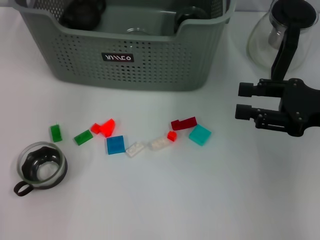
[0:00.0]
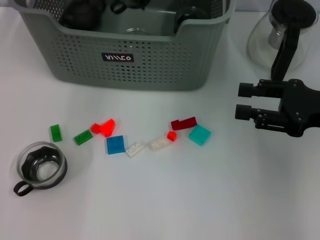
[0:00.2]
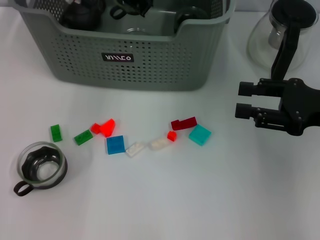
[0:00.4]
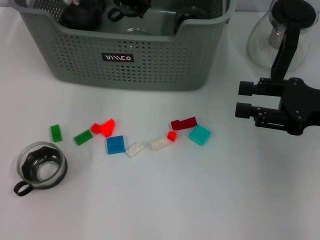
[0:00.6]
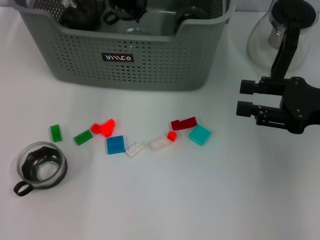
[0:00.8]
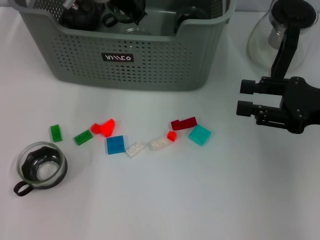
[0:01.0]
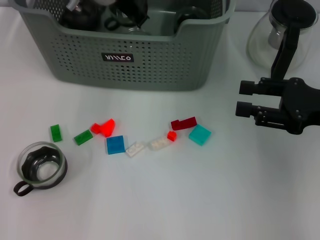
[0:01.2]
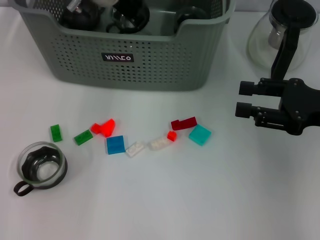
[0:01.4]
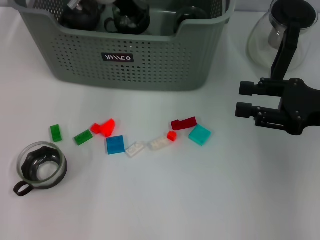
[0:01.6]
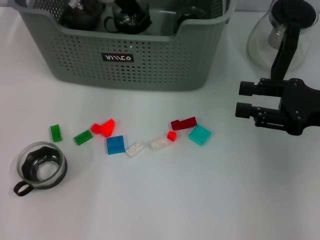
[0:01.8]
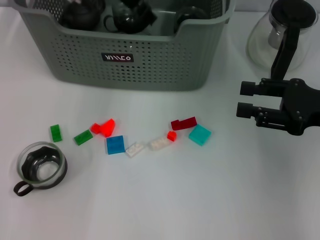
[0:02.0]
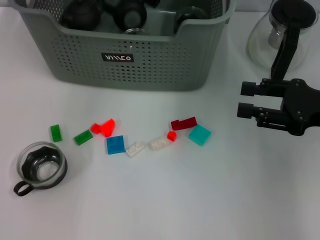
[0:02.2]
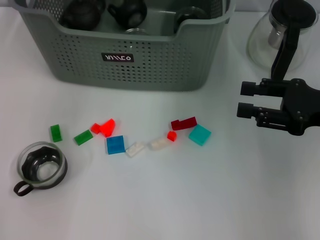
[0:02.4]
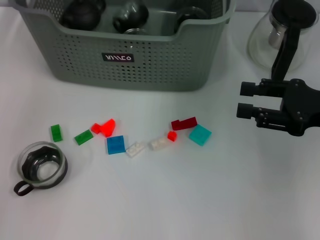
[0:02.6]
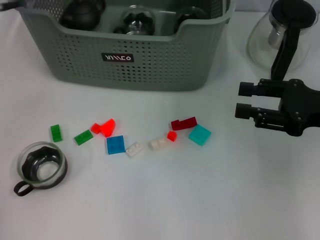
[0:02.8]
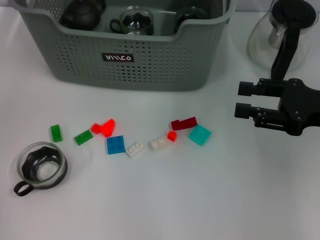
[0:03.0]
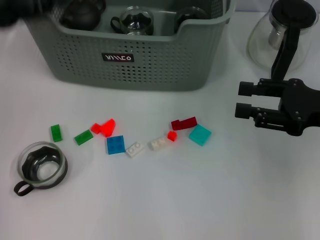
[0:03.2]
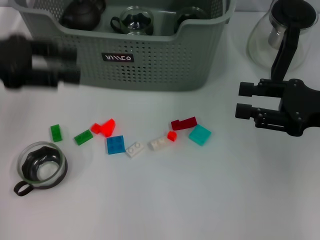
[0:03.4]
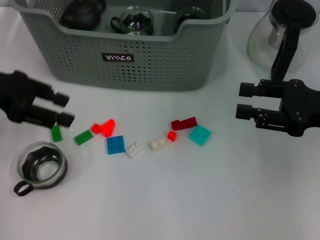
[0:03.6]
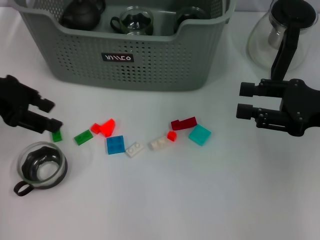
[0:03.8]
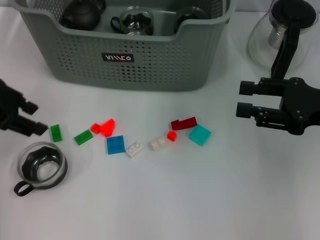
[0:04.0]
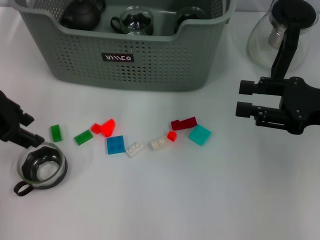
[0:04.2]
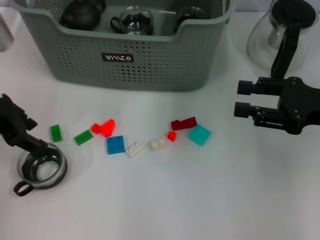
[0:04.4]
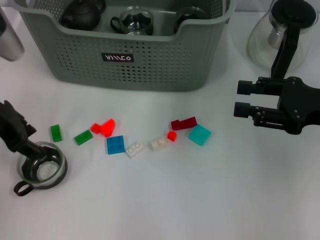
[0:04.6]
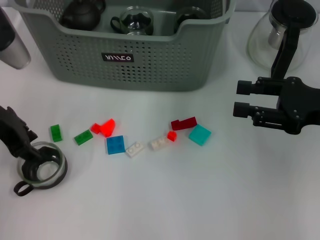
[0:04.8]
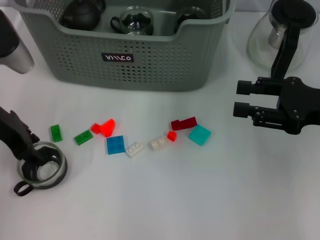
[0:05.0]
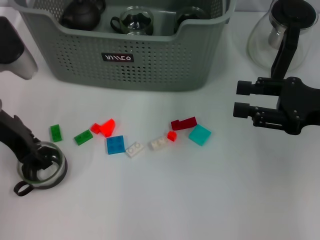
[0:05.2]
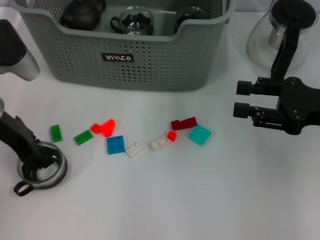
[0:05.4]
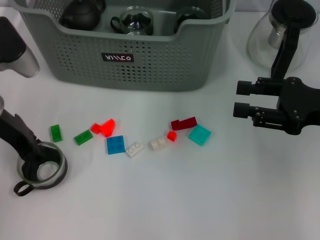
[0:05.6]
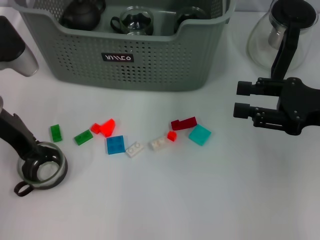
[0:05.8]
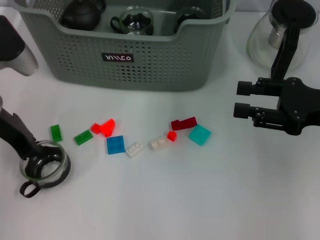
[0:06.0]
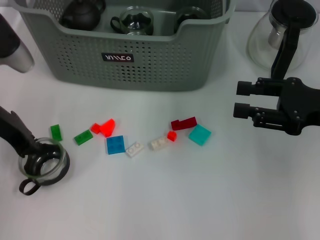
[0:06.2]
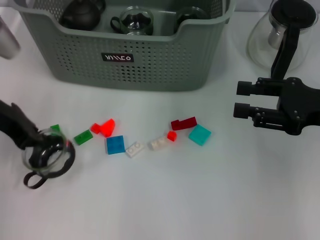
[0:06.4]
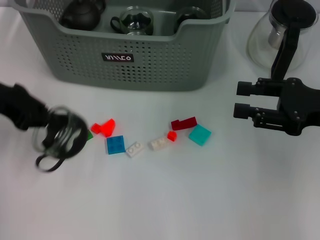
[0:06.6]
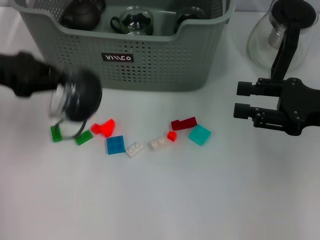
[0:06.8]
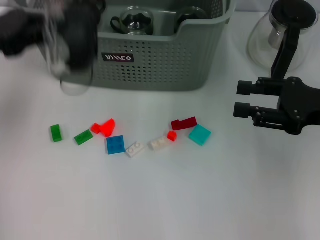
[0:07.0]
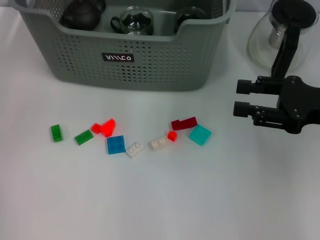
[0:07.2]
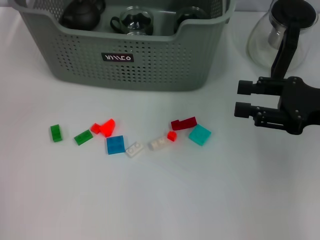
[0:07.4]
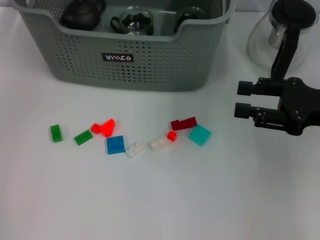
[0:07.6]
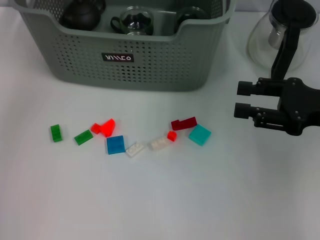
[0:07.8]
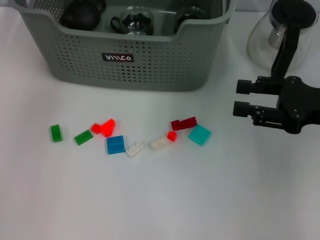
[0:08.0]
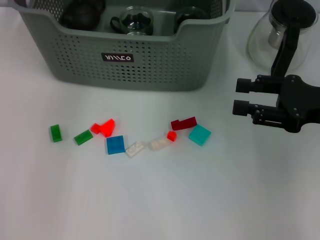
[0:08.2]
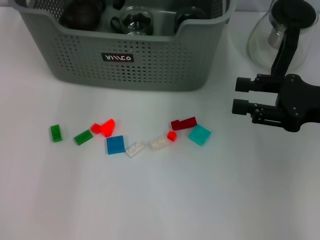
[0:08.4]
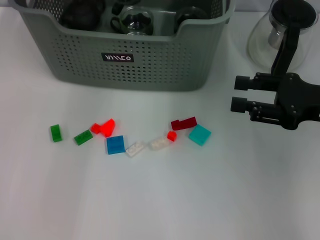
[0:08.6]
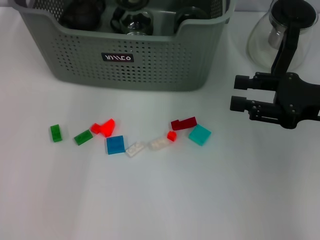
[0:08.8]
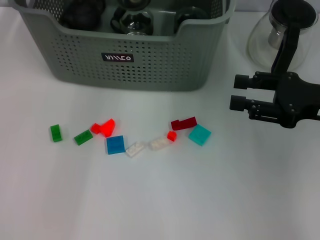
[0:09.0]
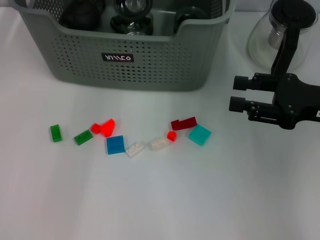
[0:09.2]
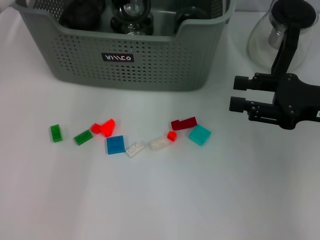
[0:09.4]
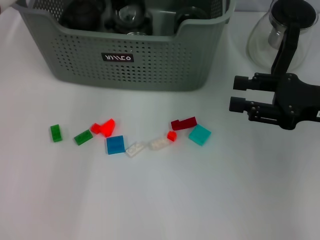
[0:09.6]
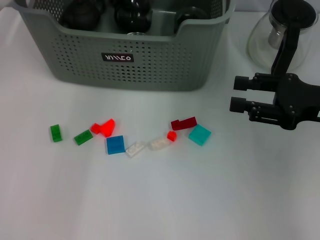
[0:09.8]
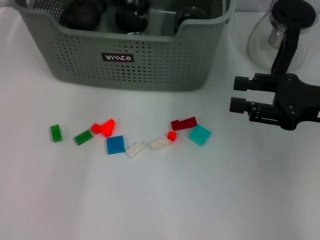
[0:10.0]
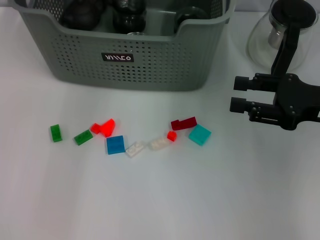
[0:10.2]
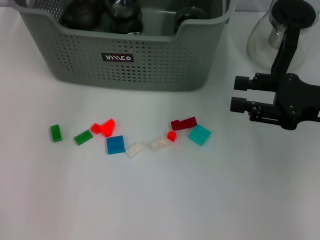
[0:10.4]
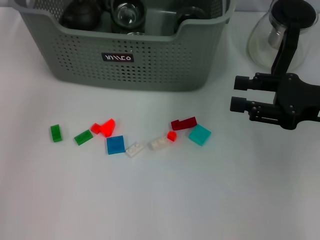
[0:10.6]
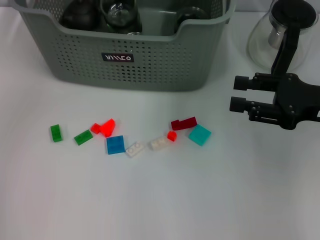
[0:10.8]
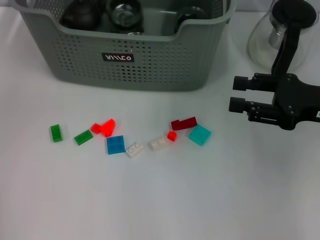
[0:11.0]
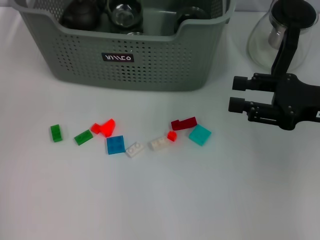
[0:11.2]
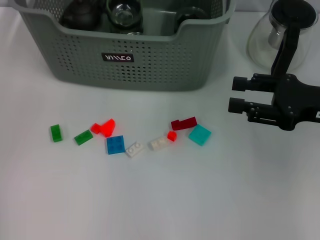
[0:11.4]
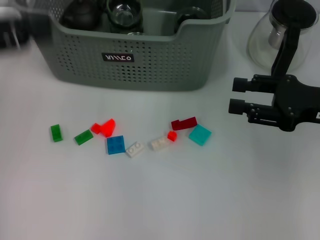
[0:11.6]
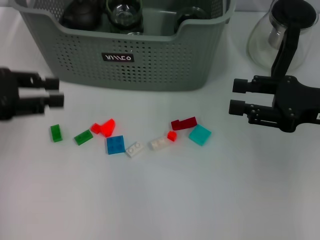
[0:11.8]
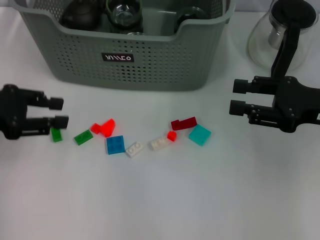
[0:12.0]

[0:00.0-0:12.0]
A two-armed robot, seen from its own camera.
Task of the whole recording: pick up the teacup on the table and place it into the storage bin, pick up the block on the table and place it into the storage bin.
Step, 0:00.0 to 0:02.4: Place the cup in the storage box with left gripper.
Step, 0:02.6 to 0:06.0: Grasp the cup with left gripper.
Step, 0:06.2 to 0:10.0: Place the cup in the storage box with left gripper.
0:00.0 to 0:01.6: The left gripper shifts some 5 cm downward.
0:01.6 to 0:03.0: The left gripper heads to the left and backward, covering approximately 25 cm, and opens up.
0:03.0 to 0:04.4: The left gripper changes place by roughly 5 cm.
0:04.4 to 0:06.0: The left gripper closes.
0:06.0 to 0:07.6: The left gripper shifts roughly 15 cm upward and forward.
0:07.6 to 0:09.0: The left gripper moves to the right, downward and forward, about 15 cm.
0:09.0 to 0:10.4: The left gripper heads upward, covering about 5 cm, and opens up.
0:10.4 to 0:12.0: The left gripper goes some 25 cm backward, to the left and downward.

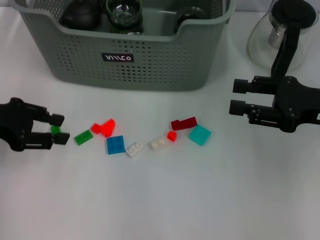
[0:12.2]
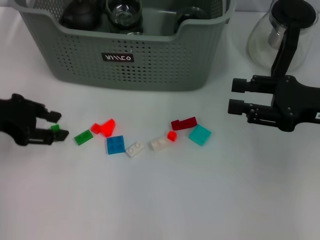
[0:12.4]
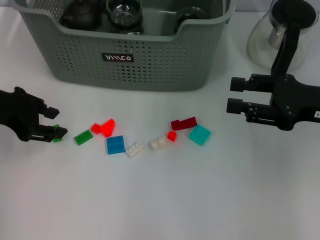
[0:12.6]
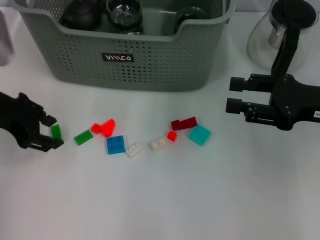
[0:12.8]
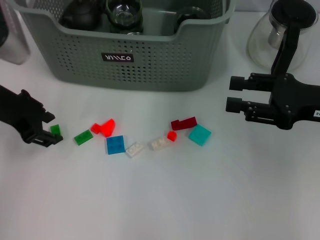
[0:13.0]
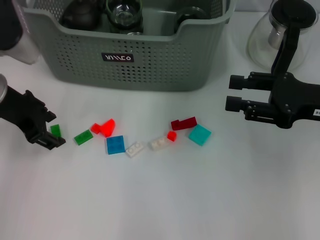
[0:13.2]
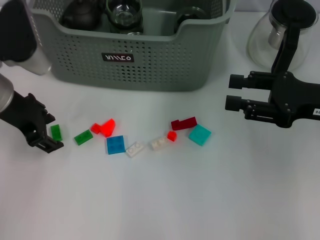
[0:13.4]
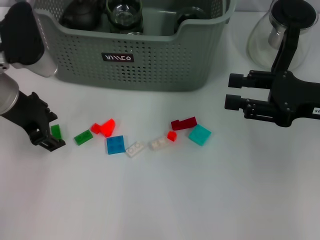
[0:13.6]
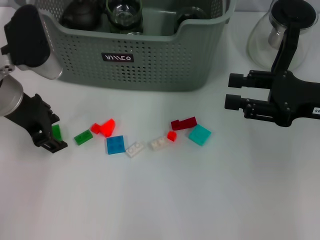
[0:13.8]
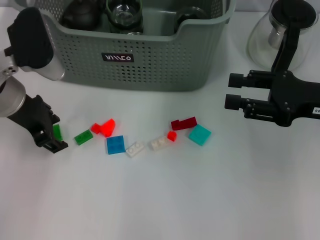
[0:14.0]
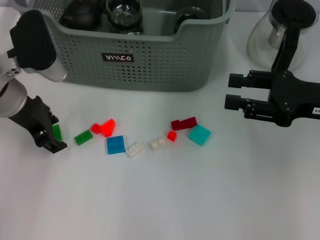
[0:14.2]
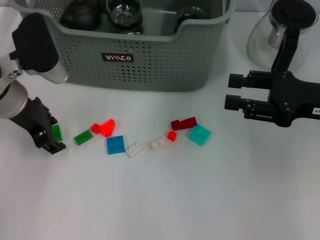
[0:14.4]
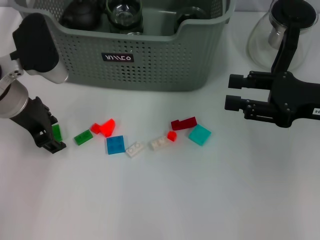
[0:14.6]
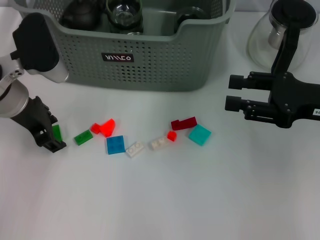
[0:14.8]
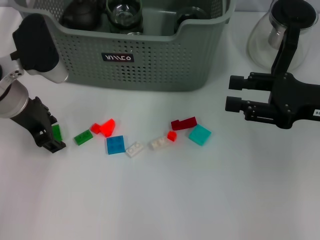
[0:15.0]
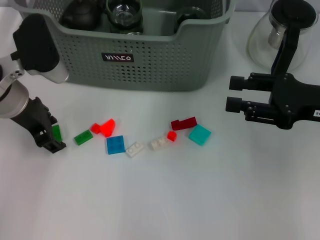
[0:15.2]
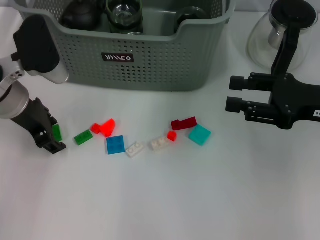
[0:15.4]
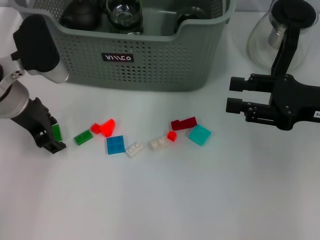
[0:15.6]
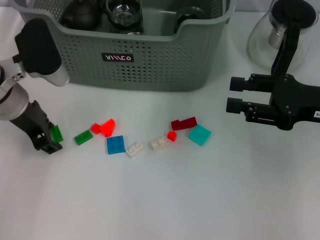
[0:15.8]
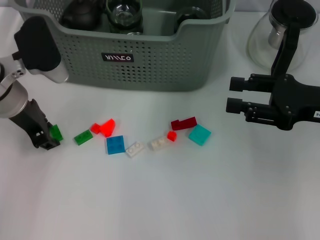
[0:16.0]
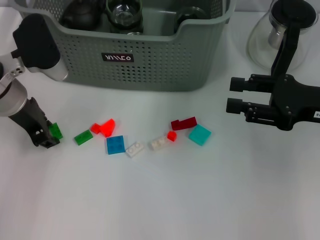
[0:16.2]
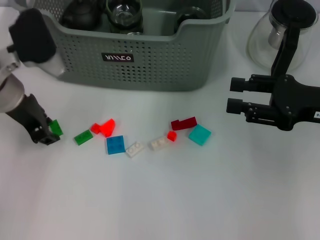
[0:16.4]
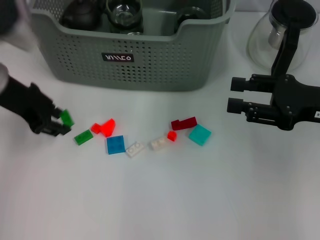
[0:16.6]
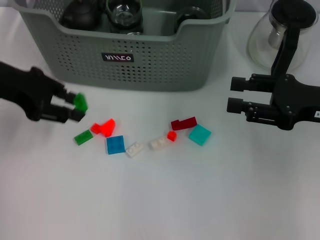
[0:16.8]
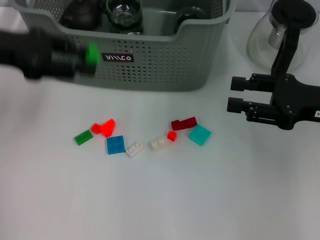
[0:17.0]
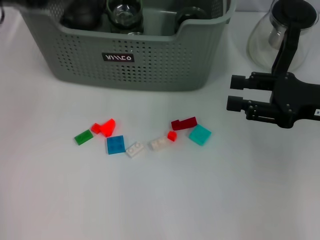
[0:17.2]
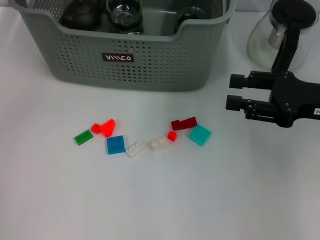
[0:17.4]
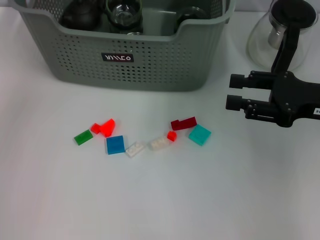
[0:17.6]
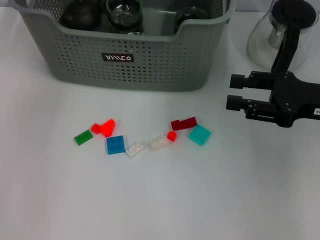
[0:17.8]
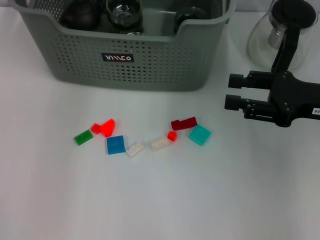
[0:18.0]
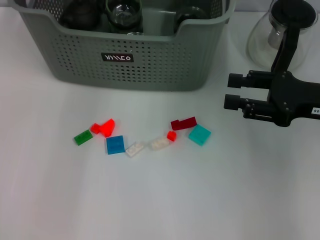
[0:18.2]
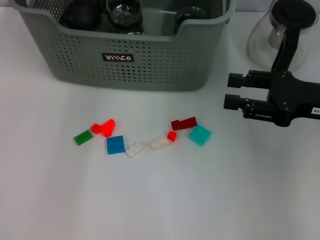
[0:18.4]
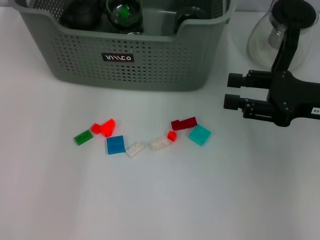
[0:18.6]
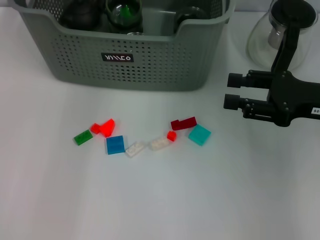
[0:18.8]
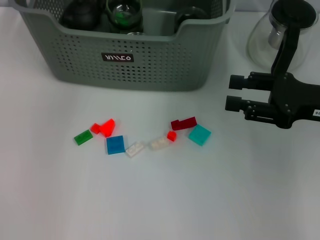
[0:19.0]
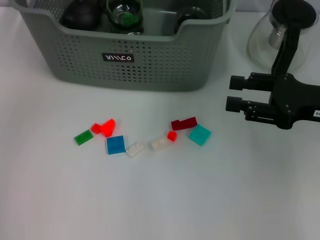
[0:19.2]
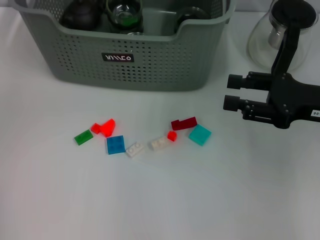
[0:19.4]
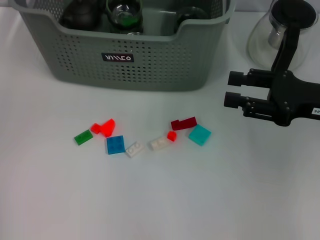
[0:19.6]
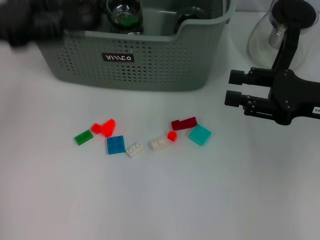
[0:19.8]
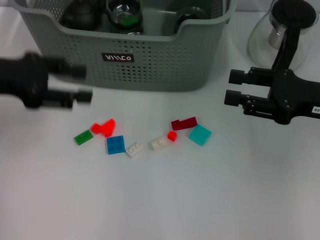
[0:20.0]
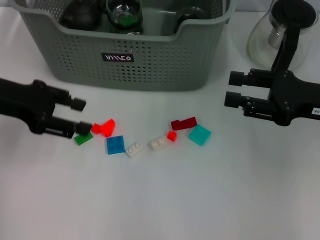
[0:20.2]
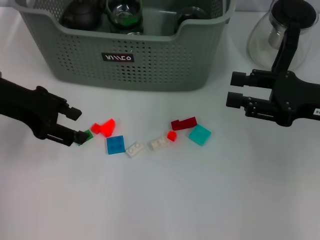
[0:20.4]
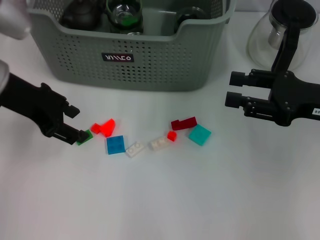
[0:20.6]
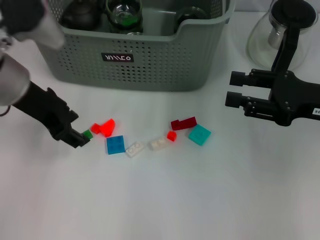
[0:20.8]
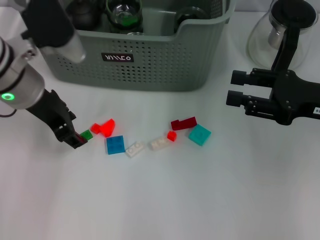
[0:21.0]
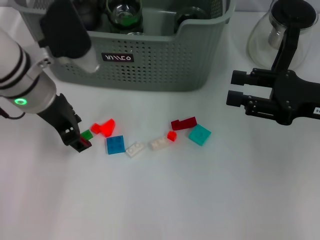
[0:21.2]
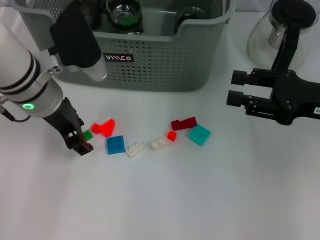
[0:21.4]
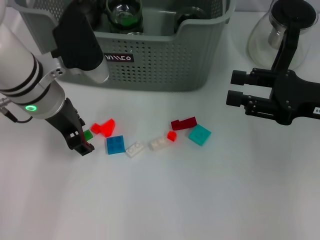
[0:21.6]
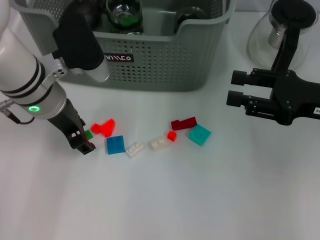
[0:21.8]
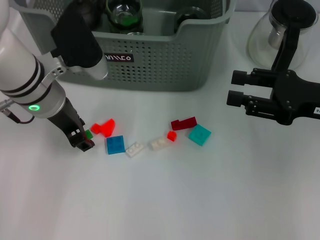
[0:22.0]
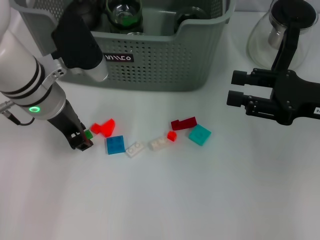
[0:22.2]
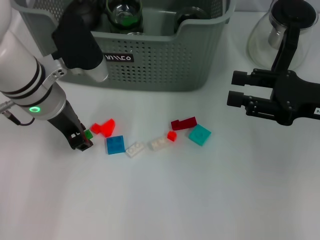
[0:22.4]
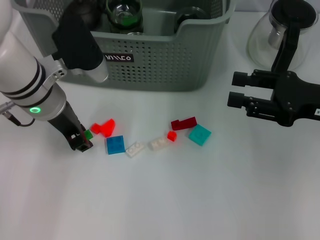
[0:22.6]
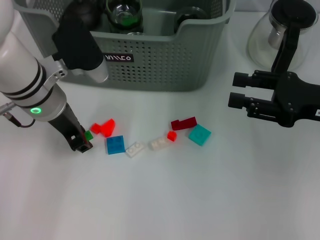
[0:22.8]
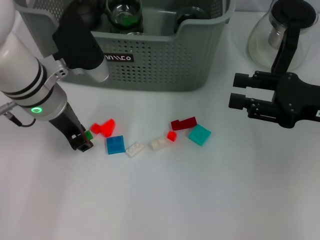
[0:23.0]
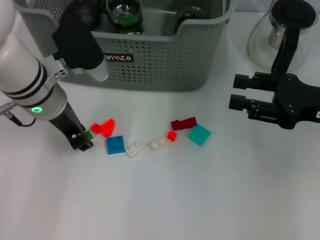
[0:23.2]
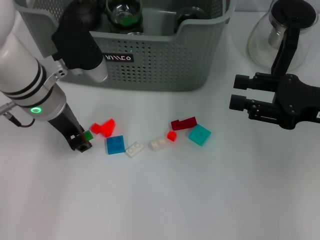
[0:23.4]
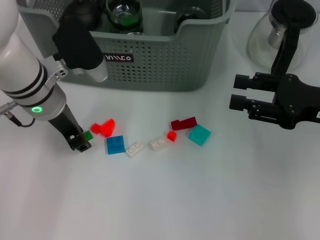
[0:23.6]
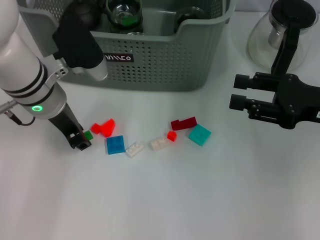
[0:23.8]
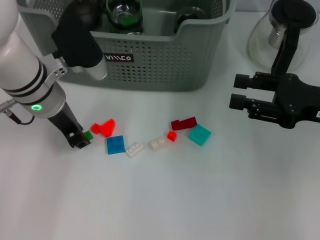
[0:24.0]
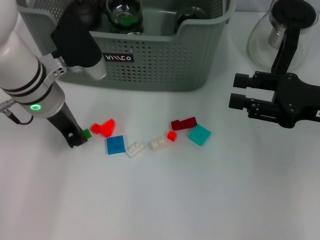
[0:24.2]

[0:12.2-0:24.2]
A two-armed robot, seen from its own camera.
Task of the whole recording: pick up the teacup on the table and place it into the storage bin, pick up the block on the table and place it into the storage bin.
Step, 0:12.2 to 0:16.0: Grasp the green block with left gripper.
Step, 0:16.2 to 0:18.6: Place the green block in the storage box with left gripper.
0:12.2 to 0:13.8: The left gripper travels to the right by some 10 cm.
0:13.8 to 0:16.6: The grippers move only a little.
0:16.6 to 0:18.2: The left gripper is displaced forward, to the right and upward by about 20 cm.
0:18.2 to 0:19.8: The left gripper moves backward and to the left, about 25 cm.
0:19.8 to 0:21.2: The left gripper is displaced to the right by about 15 cm.
0:21.2 to 0:22.6: There are only small adjustments of the grippers.
0:22.6 to 0:24.2: Neither gripper changes place.
